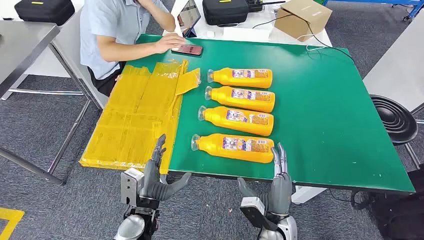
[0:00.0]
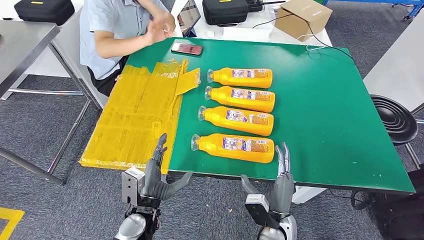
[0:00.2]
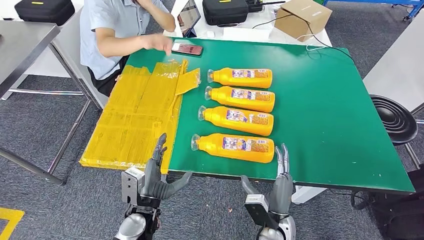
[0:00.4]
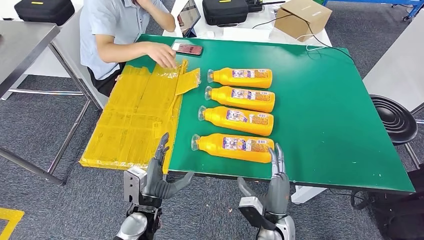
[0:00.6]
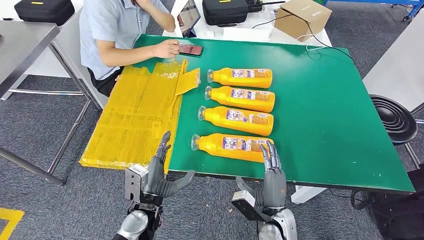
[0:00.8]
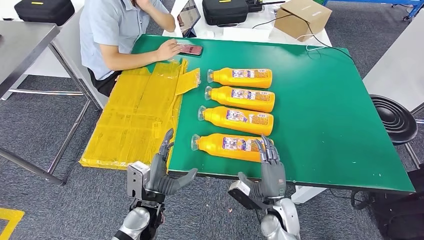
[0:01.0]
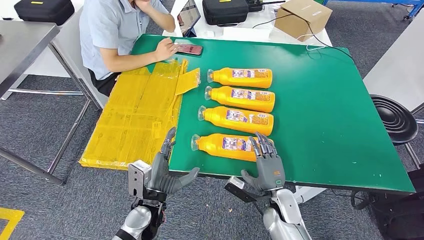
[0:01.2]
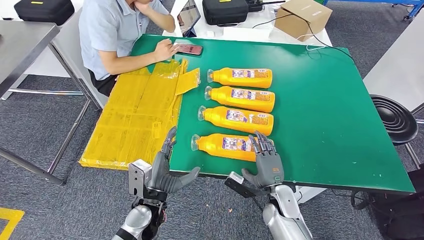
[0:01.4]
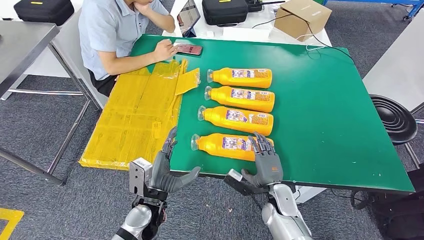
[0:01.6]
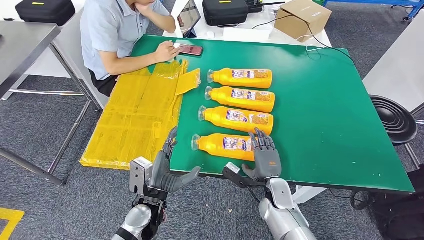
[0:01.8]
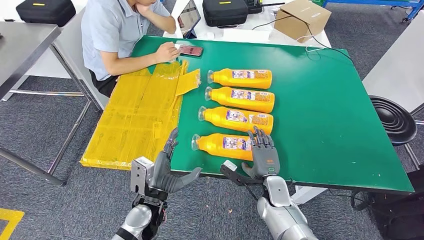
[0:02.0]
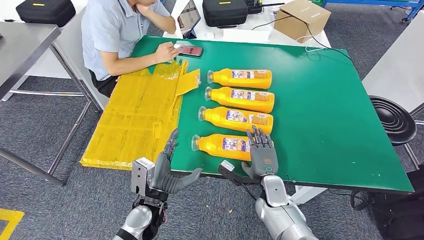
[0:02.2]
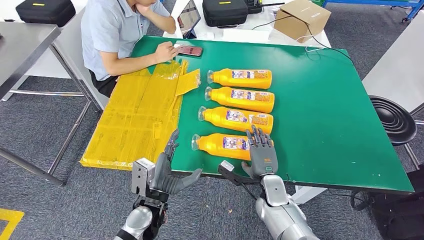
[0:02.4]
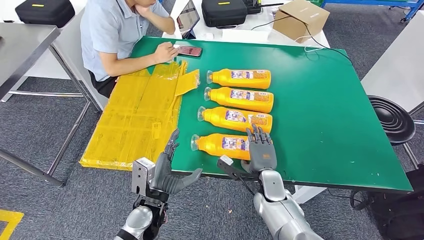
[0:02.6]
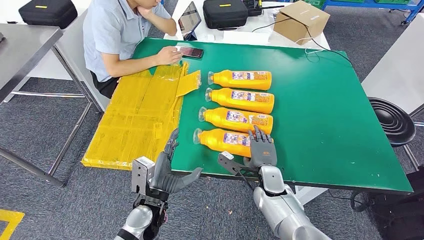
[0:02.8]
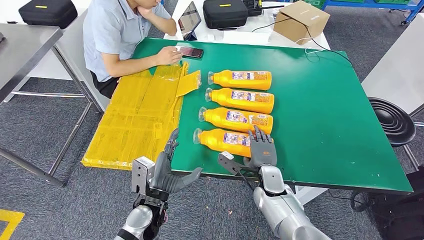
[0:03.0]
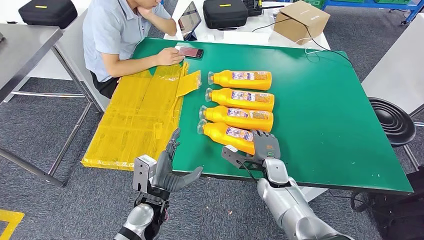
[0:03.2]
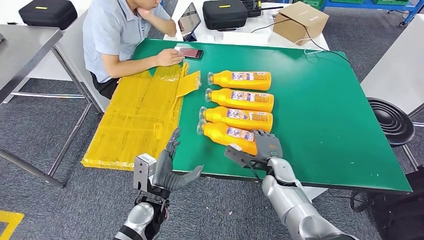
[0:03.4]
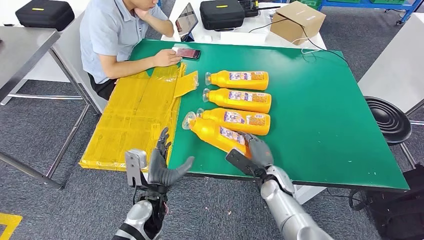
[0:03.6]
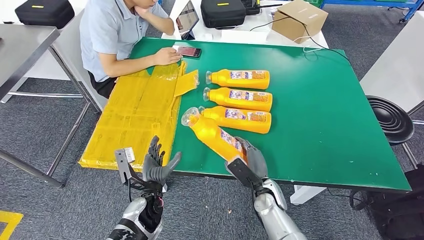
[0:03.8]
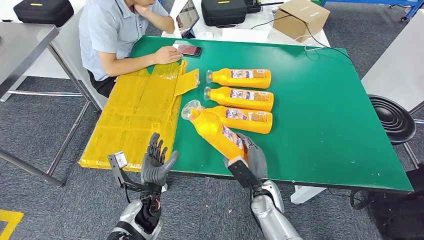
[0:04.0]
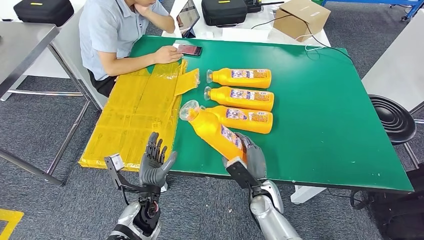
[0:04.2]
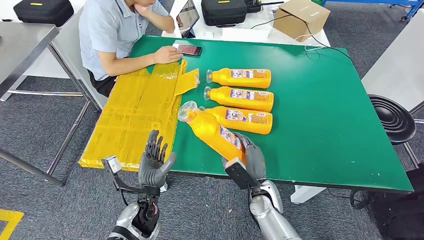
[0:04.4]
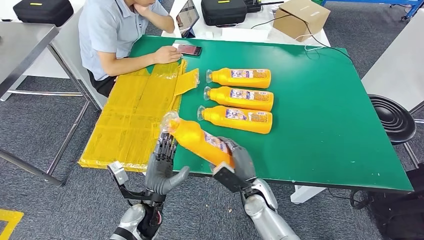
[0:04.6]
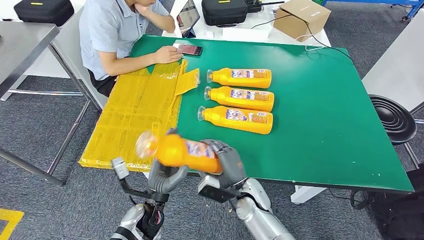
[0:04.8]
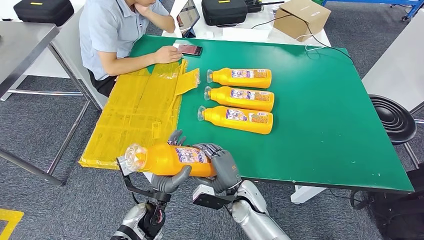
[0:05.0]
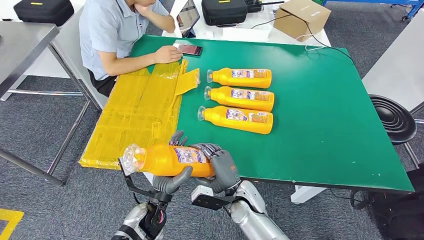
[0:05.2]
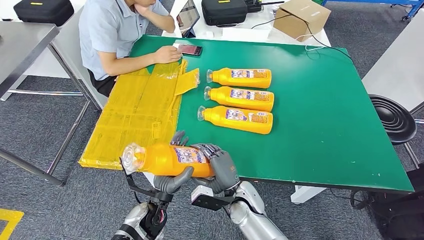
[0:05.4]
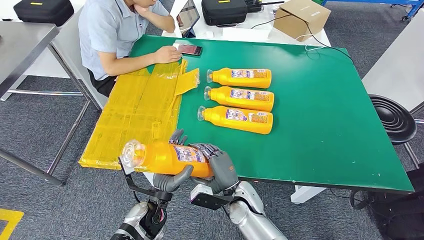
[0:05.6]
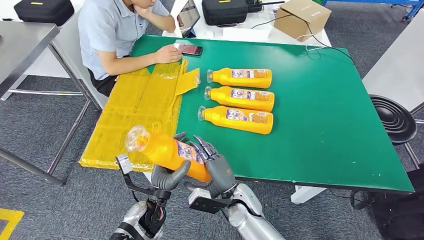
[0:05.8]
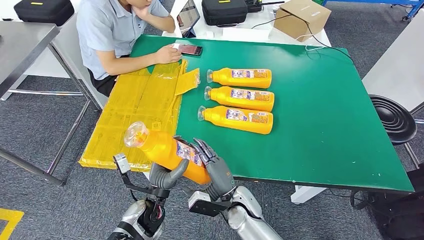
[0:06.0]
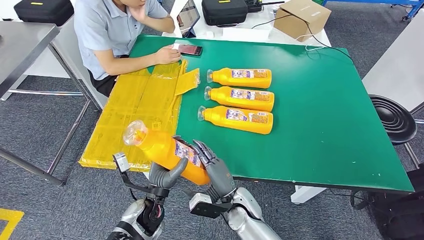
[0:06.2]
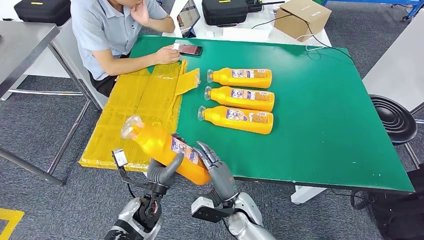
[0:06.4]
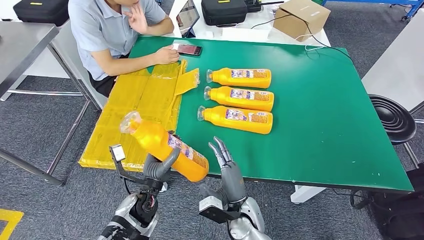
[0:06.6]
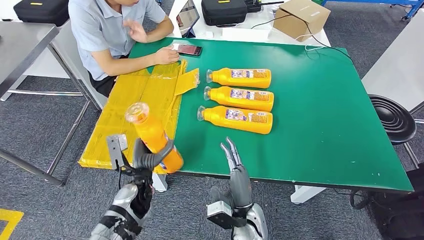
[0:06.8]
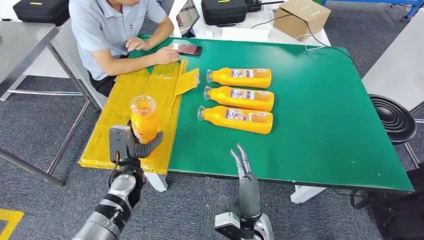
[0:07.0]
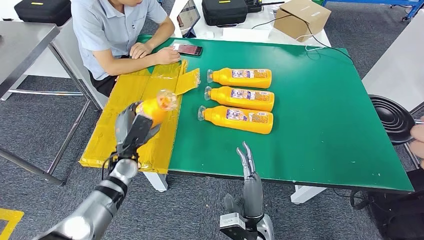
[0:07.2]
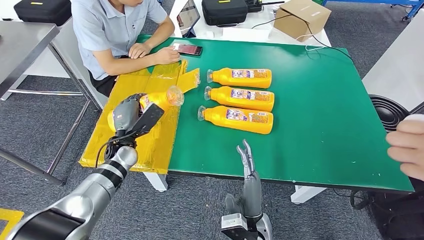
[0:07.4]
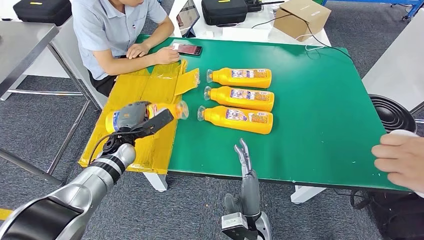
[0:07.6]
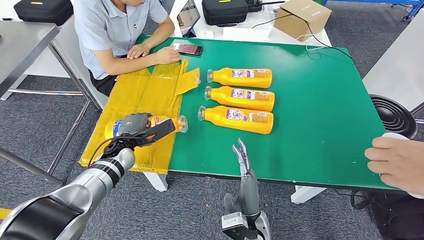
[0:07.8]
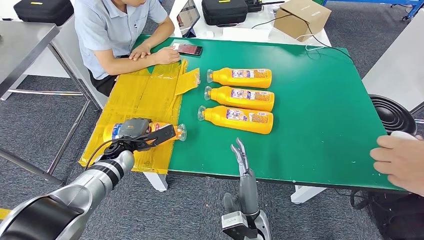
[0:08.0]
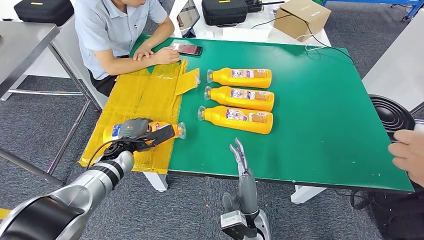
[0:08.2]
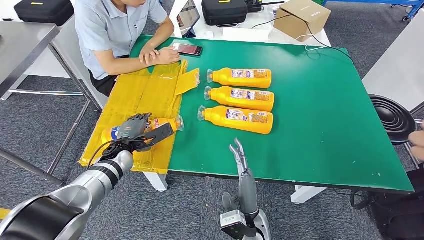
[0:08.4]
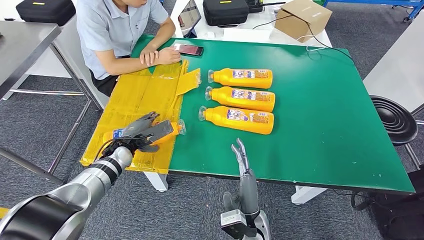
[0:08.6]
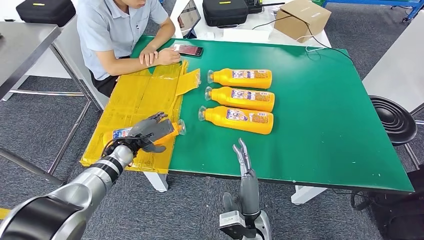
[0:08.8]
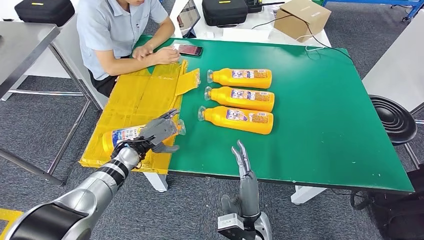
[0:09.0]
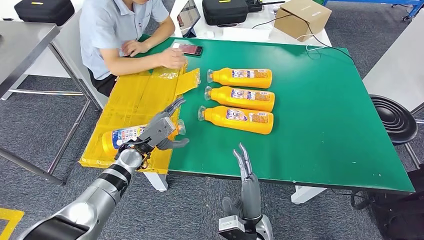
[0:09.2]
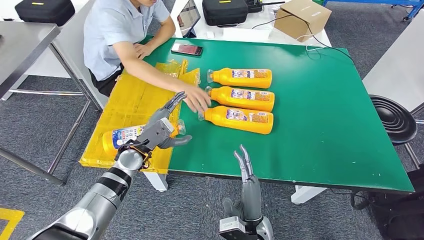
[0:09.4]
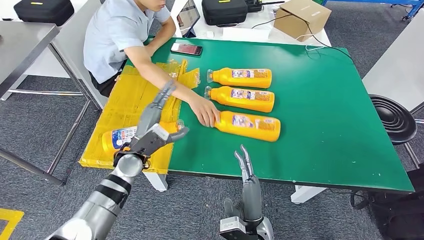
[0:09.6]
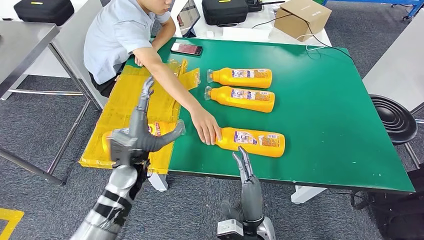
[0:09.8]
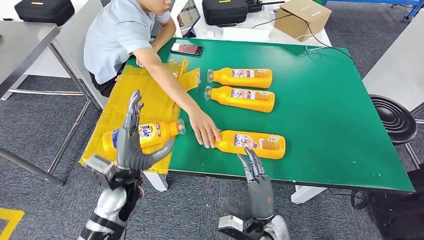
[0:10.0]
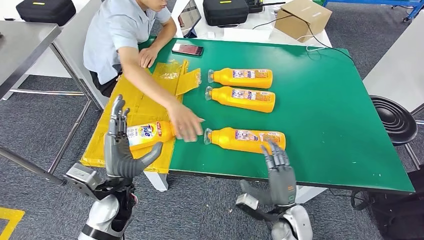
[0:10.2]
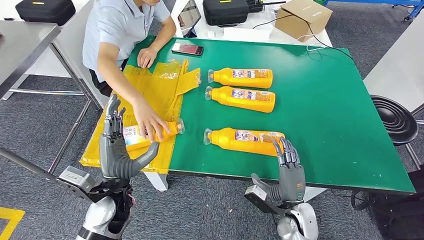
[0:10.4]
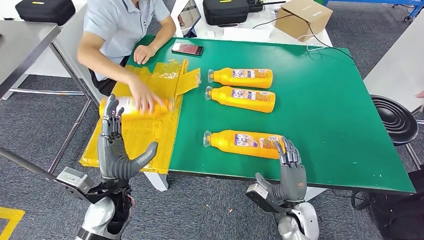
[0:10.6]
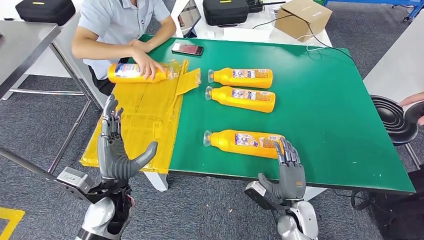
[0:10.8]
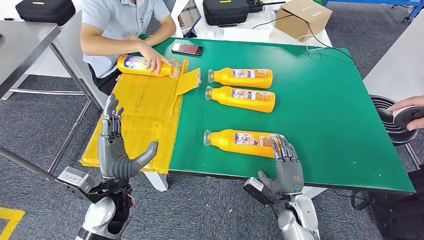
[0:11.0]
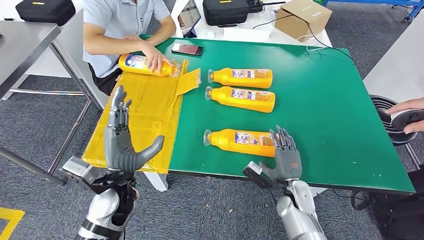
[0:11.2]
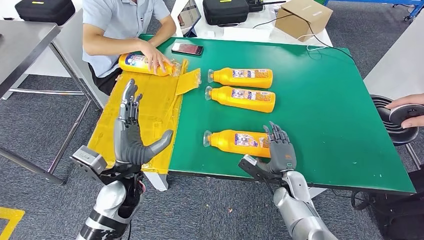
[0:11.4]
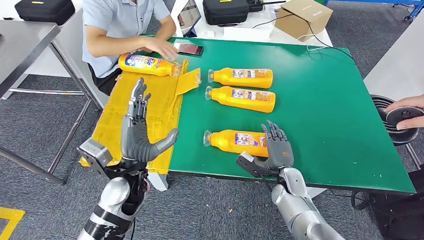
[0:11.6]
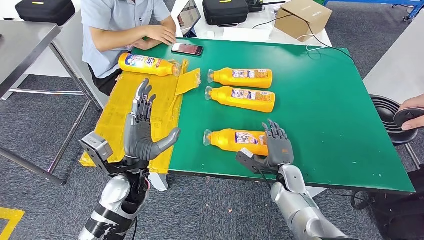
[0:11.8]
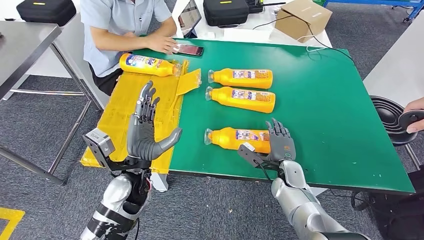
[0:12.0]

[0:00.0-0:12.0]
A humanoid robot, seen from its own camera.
Step, 0:00.0 to 0:05.6: Take the fast-moving consumer goods bottle from the table.
Step, 0:05.8 to 0:10.8: Flip the fast-moving consumer goods bottle to the front side.
0:04.4 to 0:06.0: The right hand is displaced to the left by approximately 5 cm.
0:10.4 to 0:12.0: The right hand is displaced forward by roughly 10 cm. The left hand ends up roughly 5 cm from where it was.

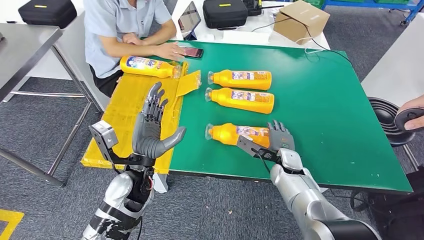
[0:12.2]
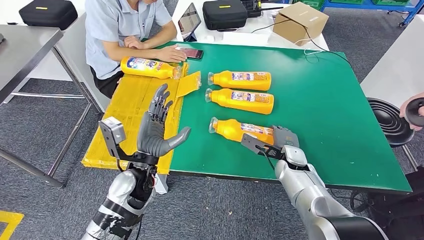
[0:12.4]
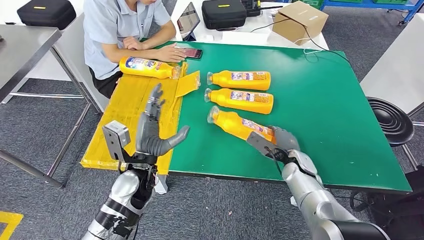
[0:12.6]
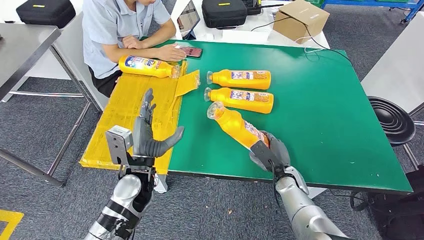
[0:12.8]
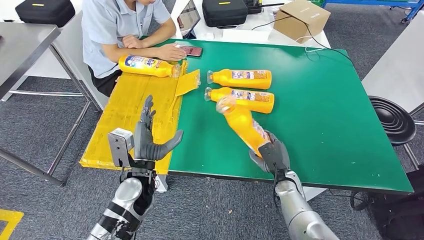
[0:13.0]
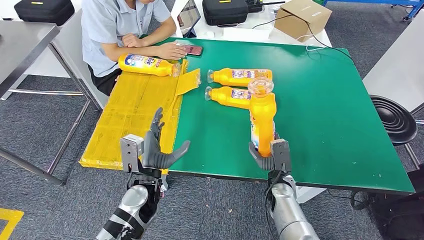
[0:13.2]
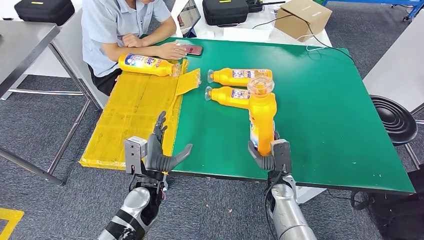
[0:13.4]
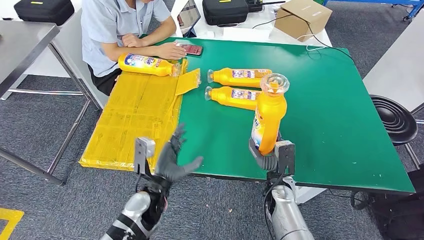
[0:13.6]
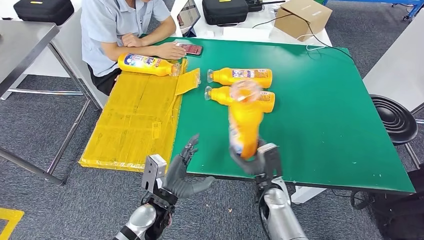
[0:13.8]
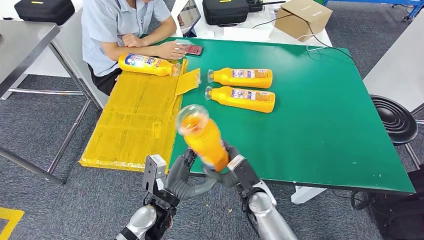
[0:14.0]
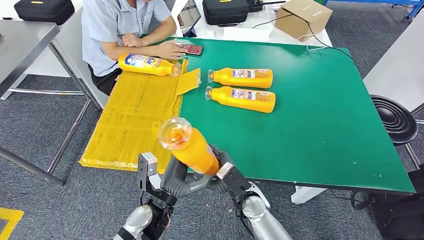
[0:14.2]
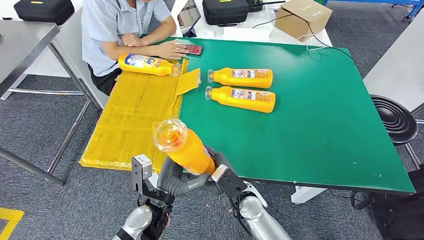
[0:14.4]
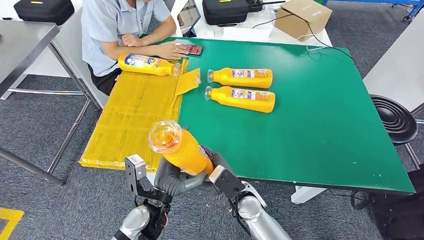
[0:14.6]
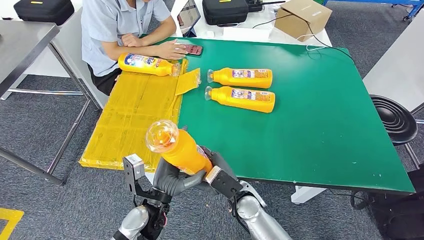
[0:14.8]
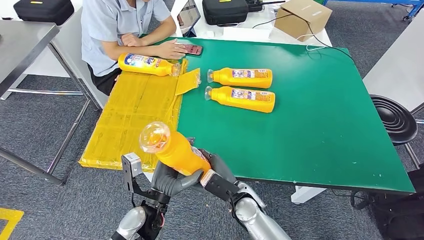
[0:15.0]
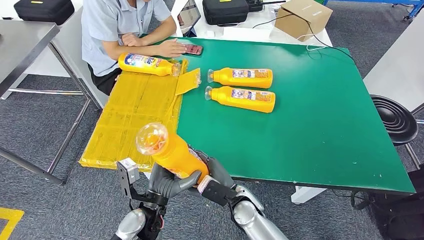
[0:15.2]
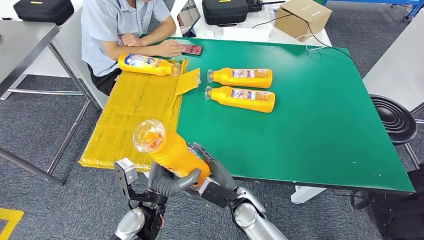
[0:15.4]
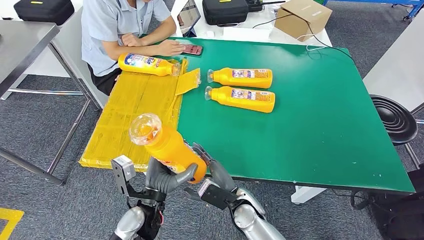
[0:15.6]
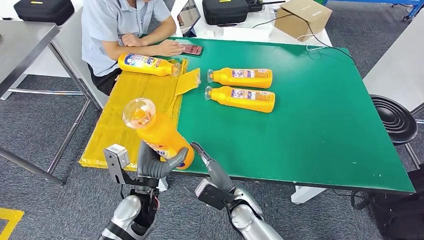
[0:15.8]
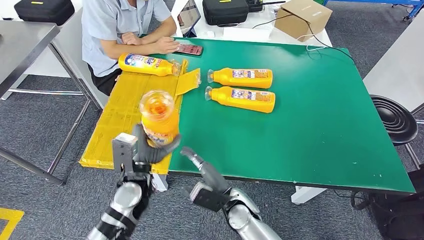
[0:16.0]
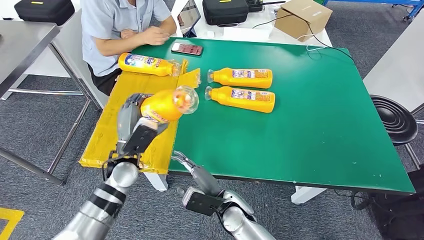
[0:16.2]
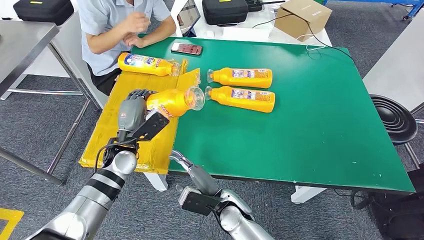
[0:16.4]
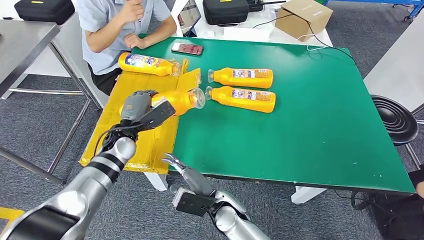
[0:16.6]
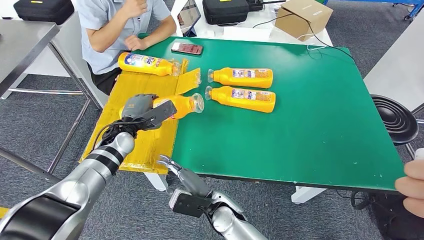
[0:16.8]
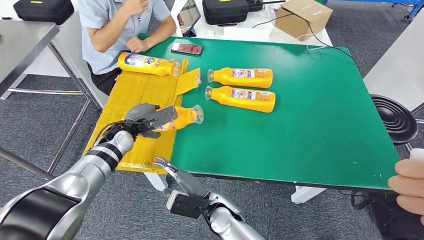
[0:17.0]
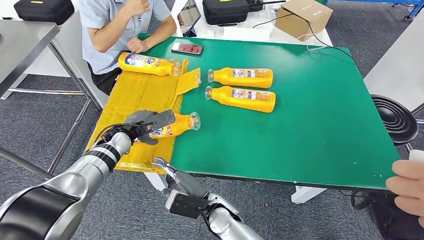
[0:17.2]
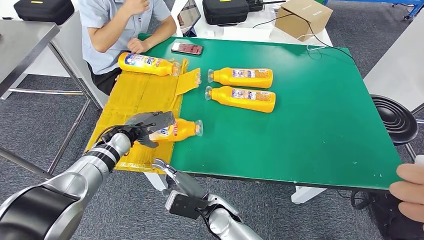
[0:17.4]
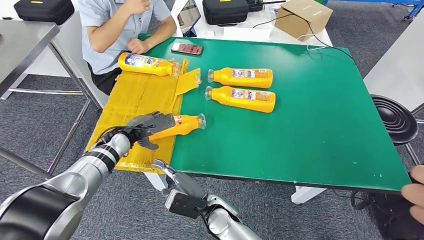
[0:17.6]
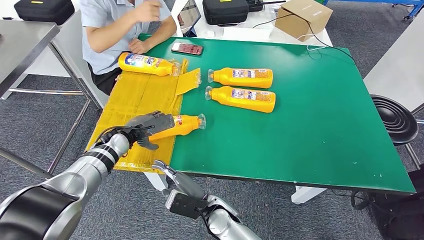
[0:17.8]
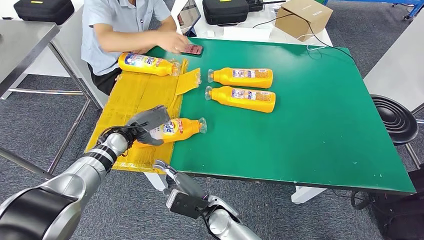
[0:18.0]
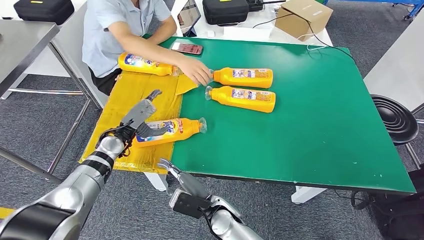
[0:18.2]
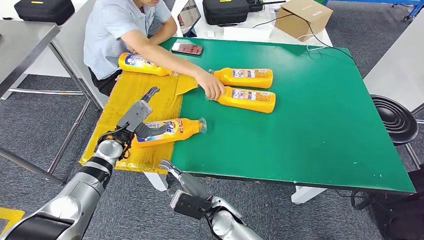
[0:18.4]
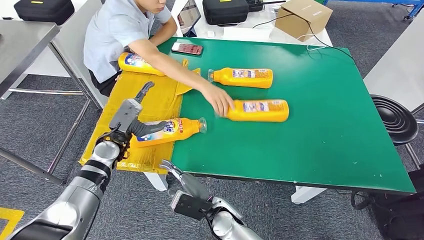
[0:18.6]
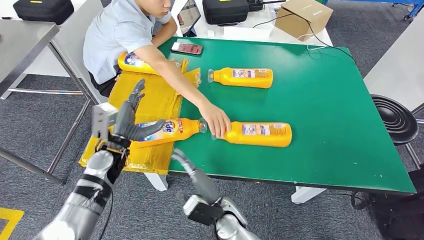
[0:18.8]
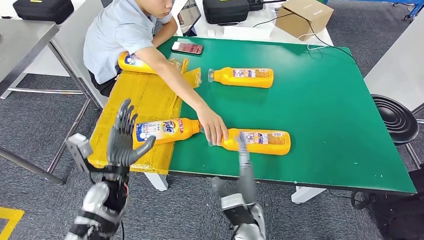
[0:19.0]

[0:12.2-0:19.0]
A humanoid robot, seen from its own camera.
Step, 0:12.2 to 0:14.4: Pick up the fast-moving consumer goods bottle from the table.
Step, 0:14.6 to 0:18.8: Flip the fast-moving consumer goods bottle to the front side.
0:13.6 to 0:15.0: The right hand moves to the left, roughly 10 cm.
0:15.0 to 0:16.2: The left hand shifts approximately 15 cm forward and to the left.
0:16.2 to 0:17.6: The left hand shifts approximately 10 cm forward and to the left.
